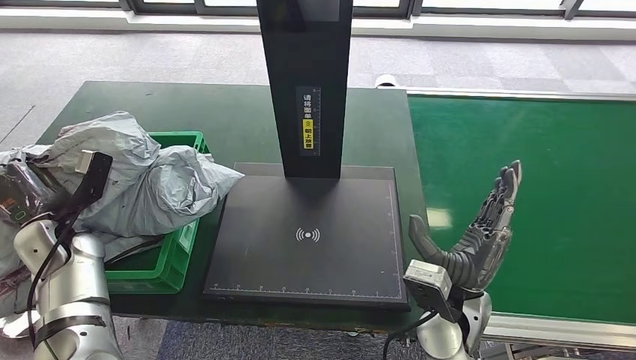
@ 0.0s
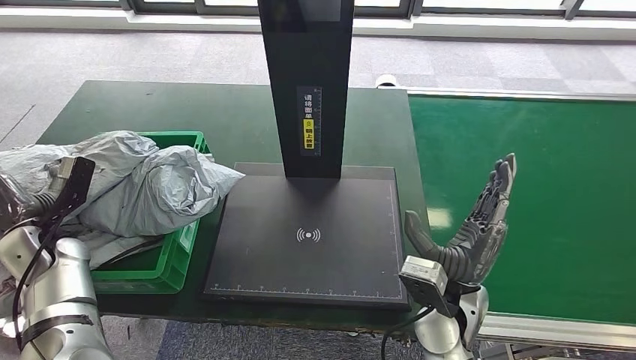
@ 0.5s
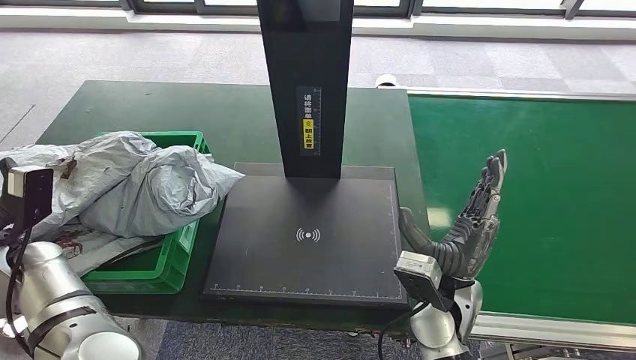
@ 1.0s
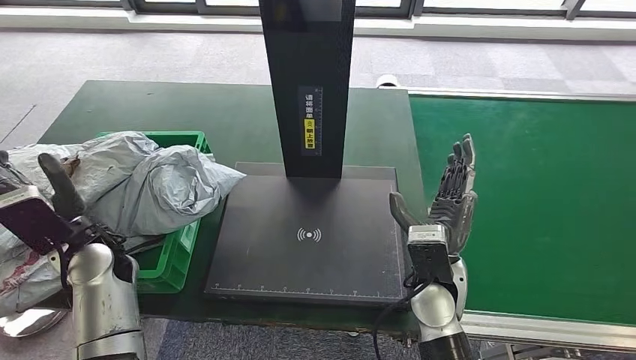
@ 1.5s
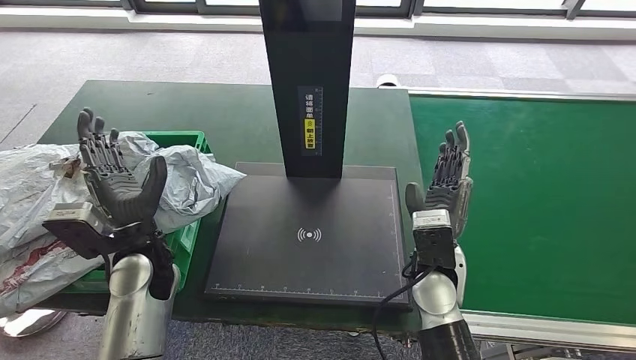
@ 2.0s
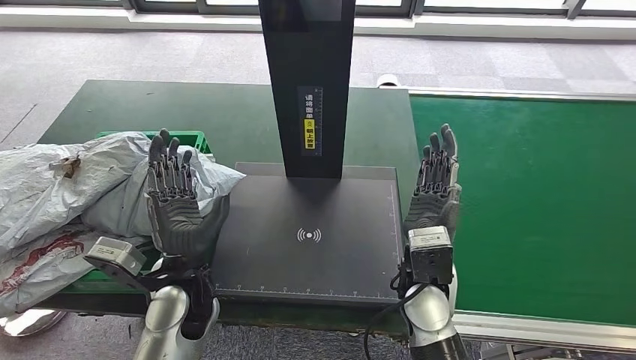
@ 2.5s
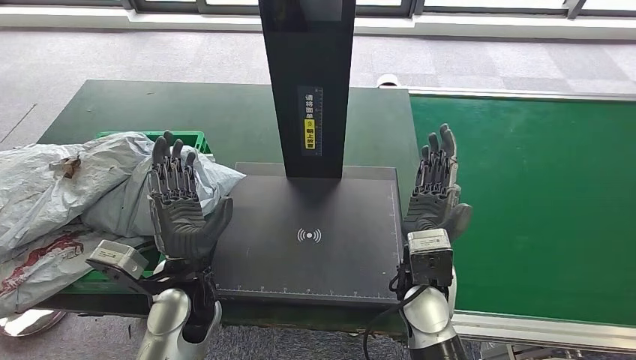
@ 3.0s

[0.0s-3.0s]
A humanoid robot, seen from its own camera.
Step, 0.0s to 3.0s: Place the parcel into the delivery box.
0.0s to 1.5s: The left hand moves to the right, about 10 cm.
1.5s to 3.0s: The left hand moves to the right, approximately 15 cm.

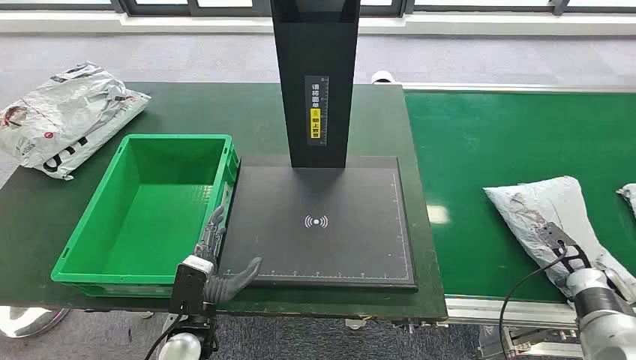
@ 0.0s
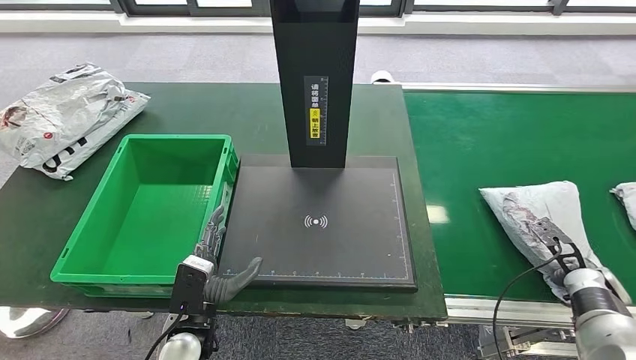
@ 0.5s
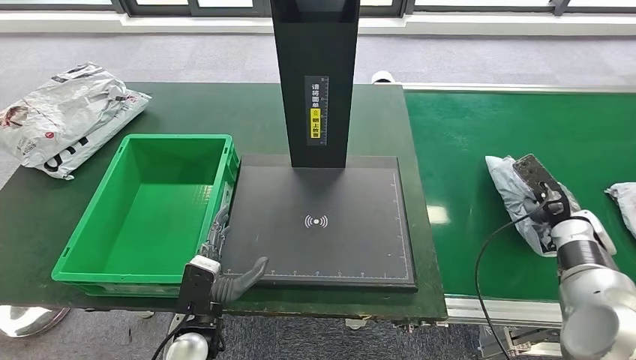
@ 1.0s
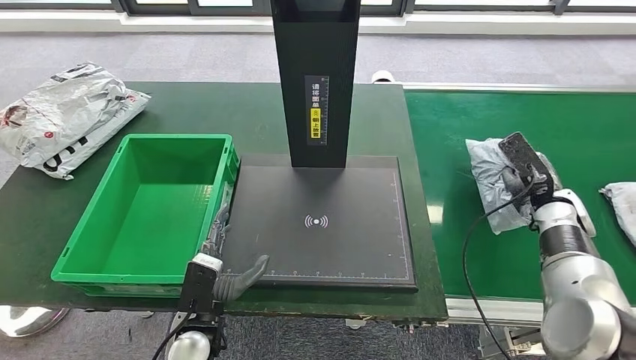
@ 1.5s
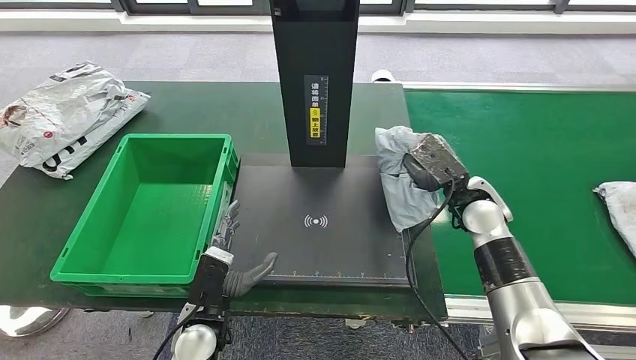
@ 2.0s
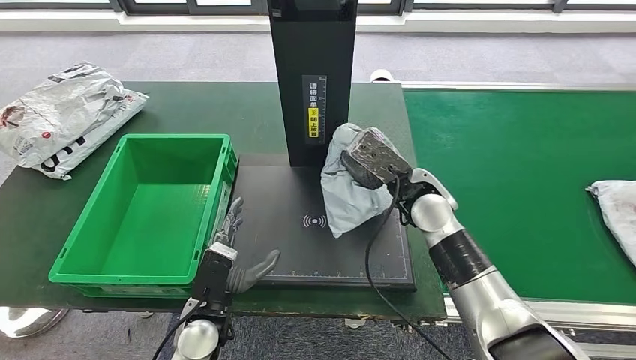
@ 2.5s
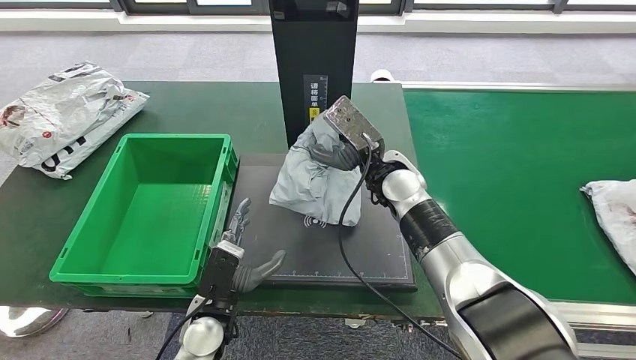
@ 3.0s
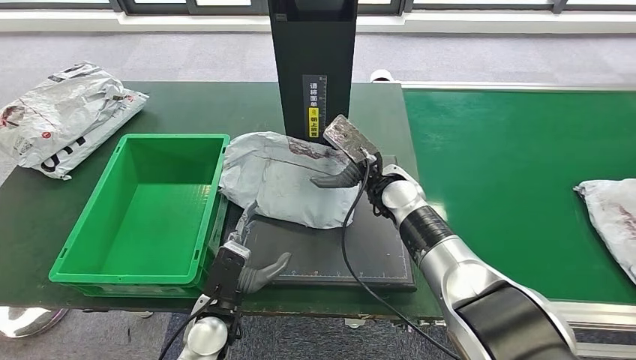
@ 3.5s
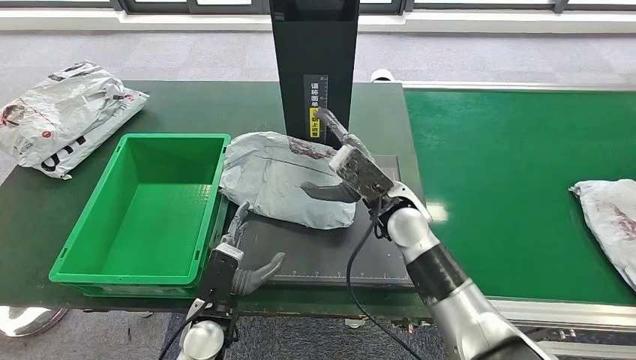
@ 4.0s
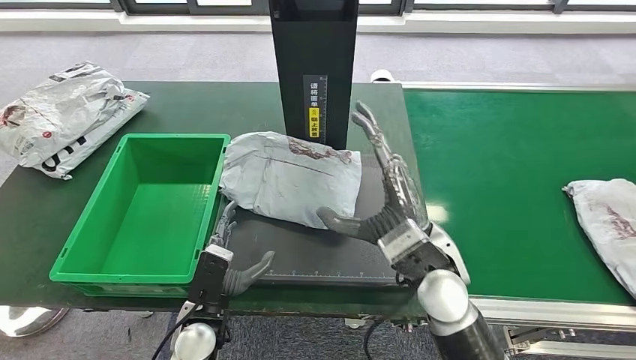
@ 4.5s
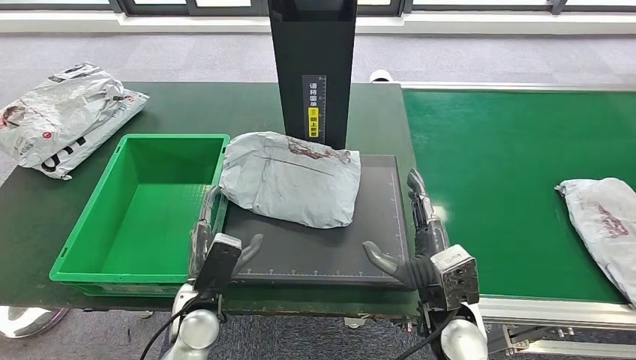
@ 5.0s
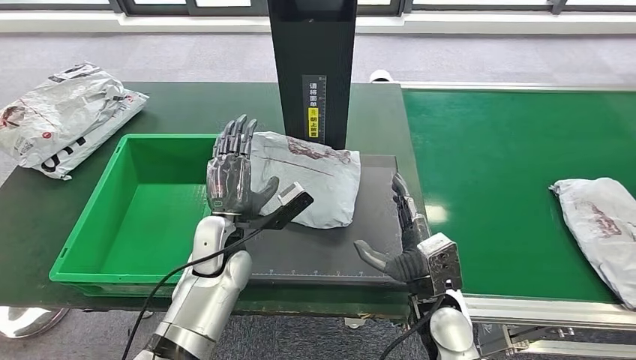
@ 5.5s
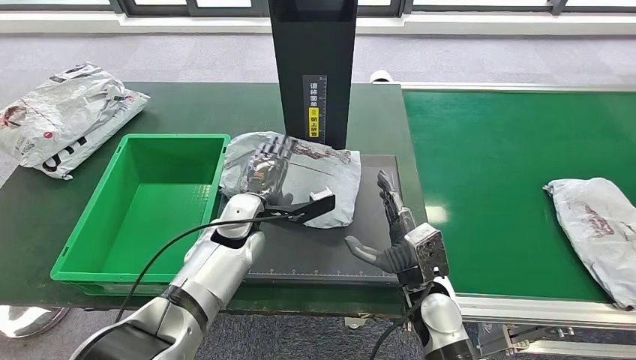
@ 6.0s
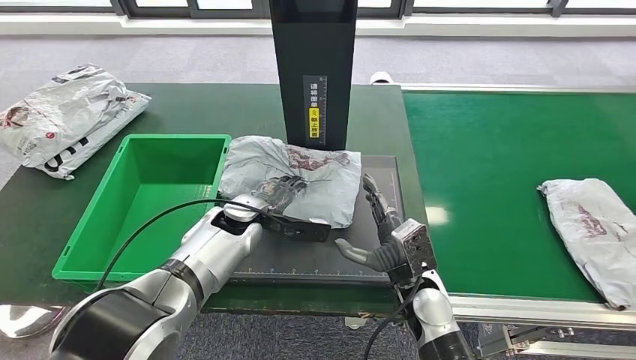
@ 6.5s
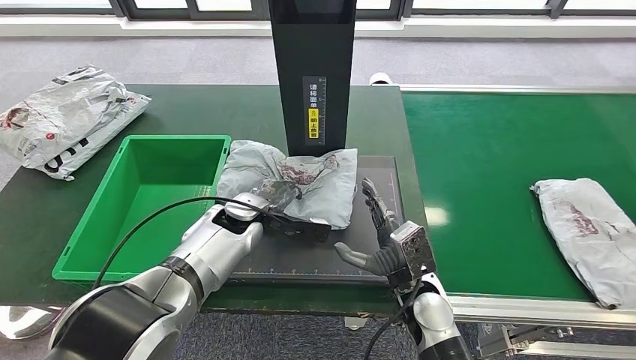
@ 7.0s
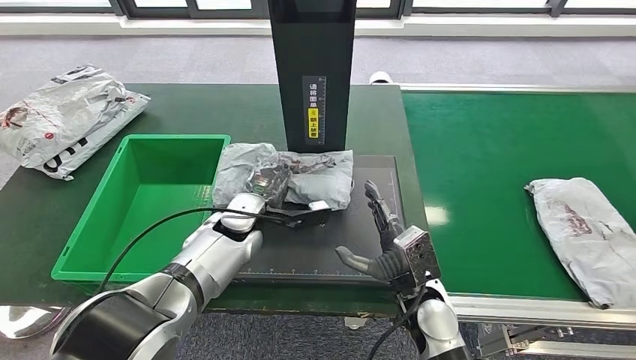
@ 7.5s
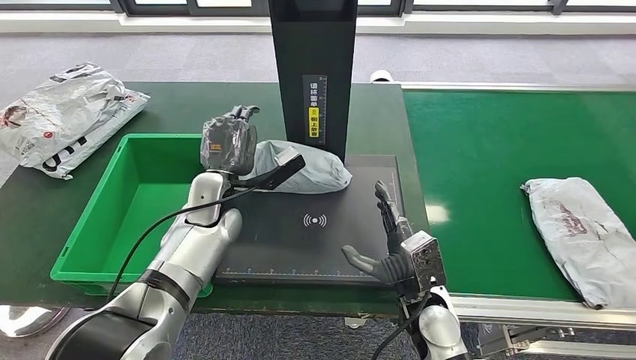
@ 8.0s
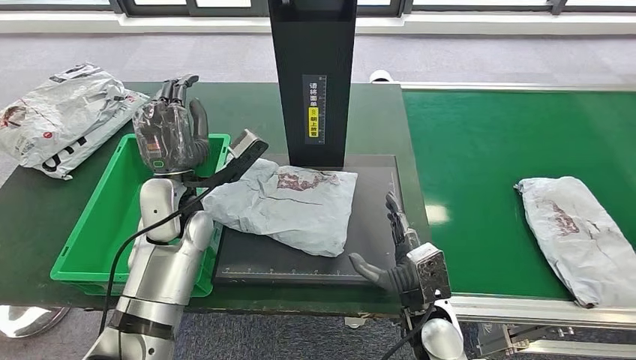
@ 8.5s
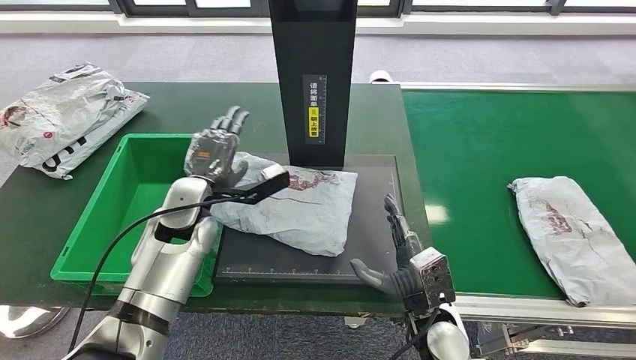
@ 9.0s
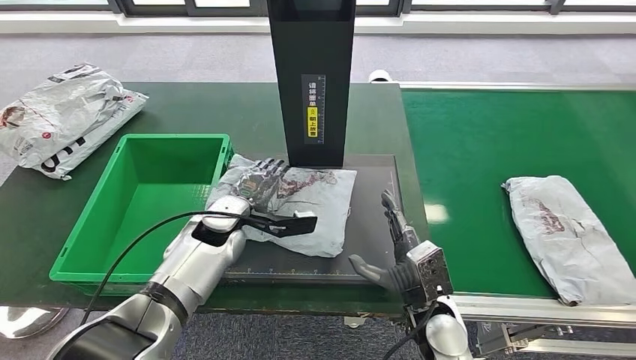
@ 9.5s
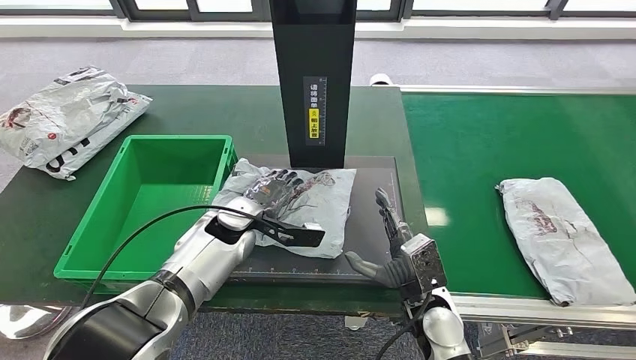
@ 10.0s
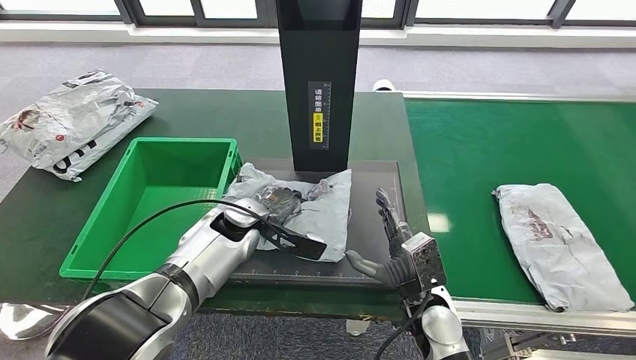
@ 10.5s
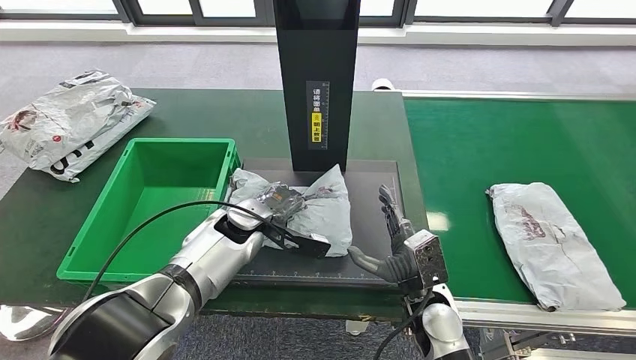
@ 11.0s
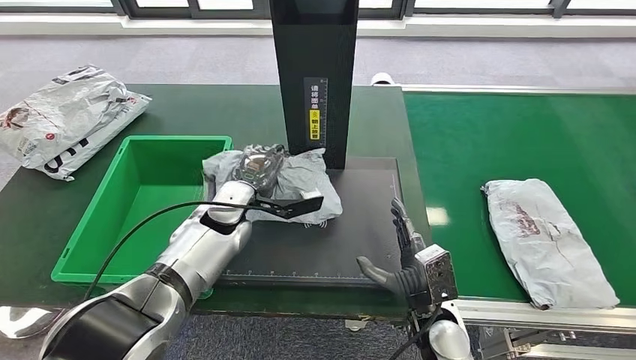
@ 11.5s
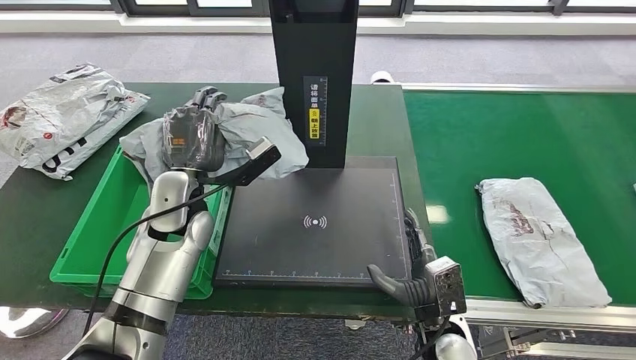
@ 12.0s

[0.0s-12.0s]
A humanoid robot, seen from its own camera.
Step, 0.0s to 1.5s: Take the parcel off the conveyor belt.
Step, 2.0s to 4.0s: Place the parcel onto the inbound machine.
6.0s to 8.0s: The left hand moves roughly 5 cm.

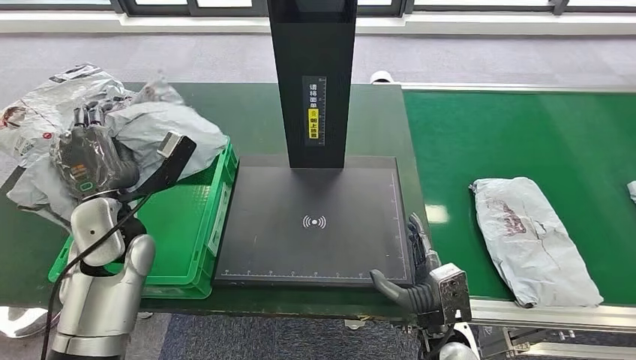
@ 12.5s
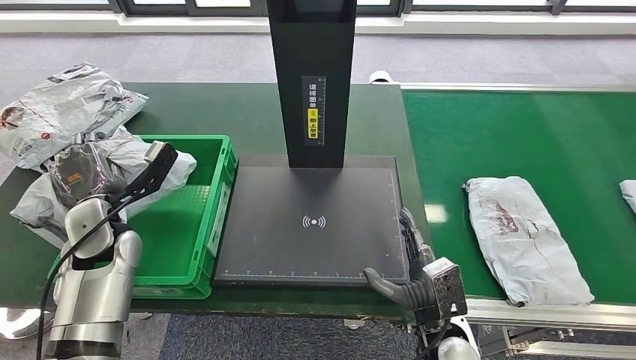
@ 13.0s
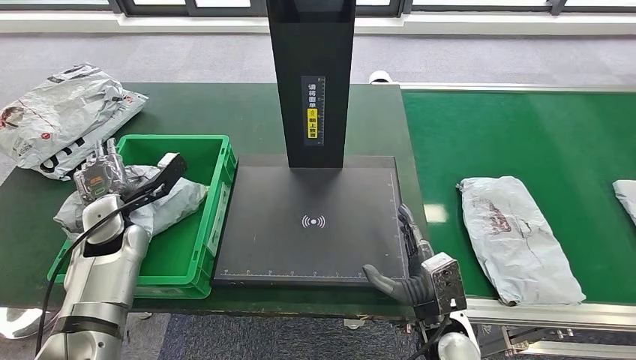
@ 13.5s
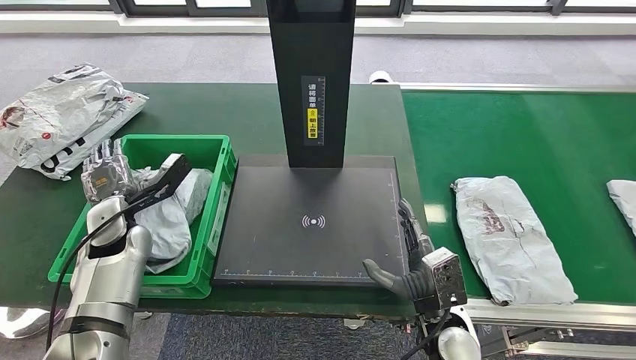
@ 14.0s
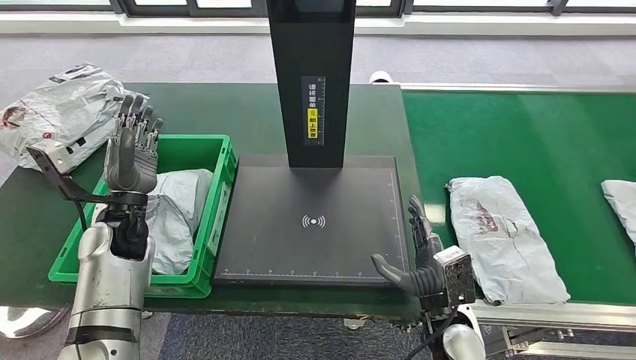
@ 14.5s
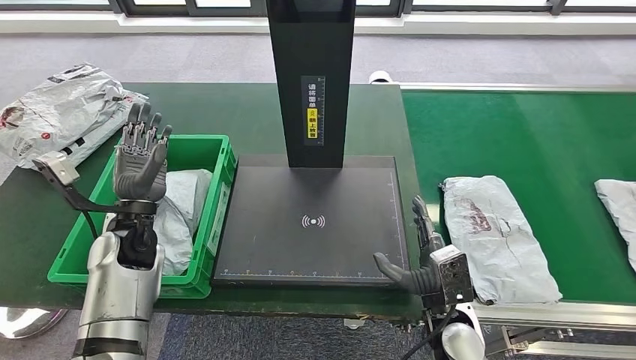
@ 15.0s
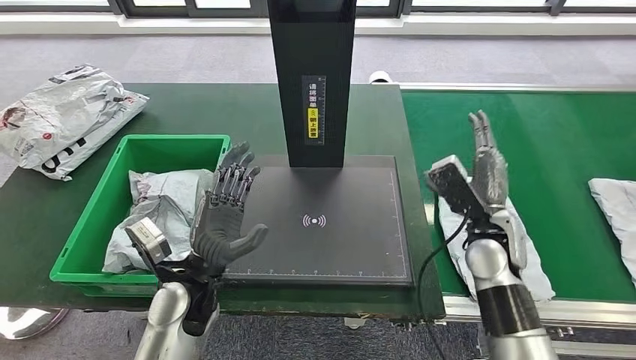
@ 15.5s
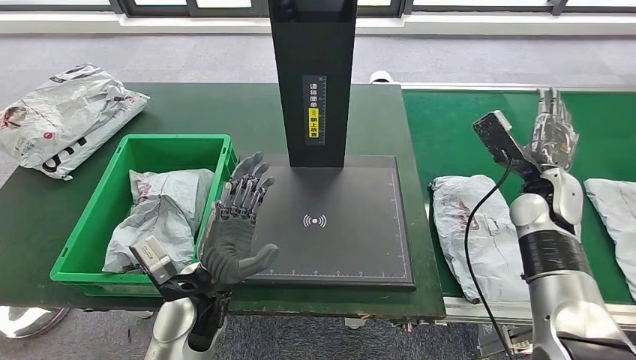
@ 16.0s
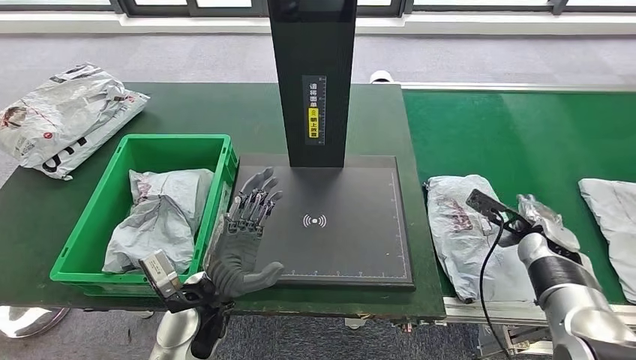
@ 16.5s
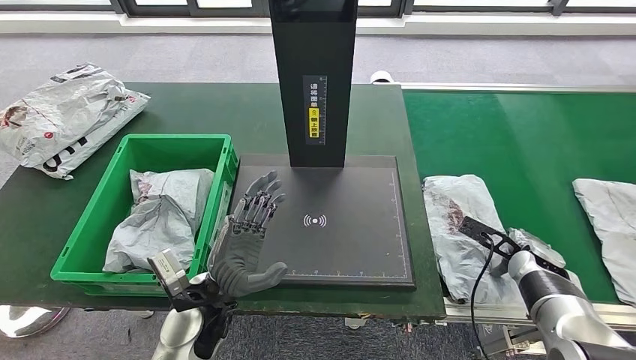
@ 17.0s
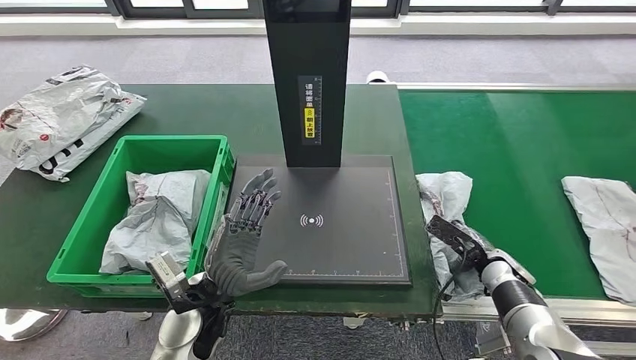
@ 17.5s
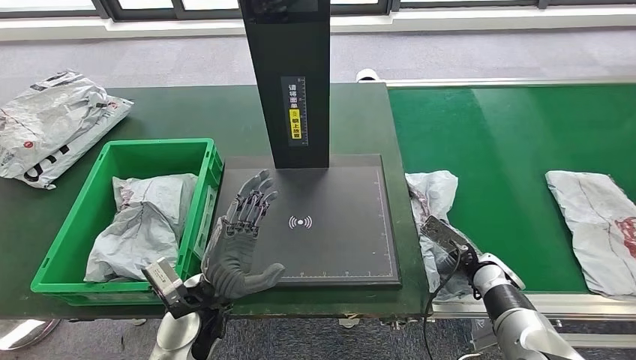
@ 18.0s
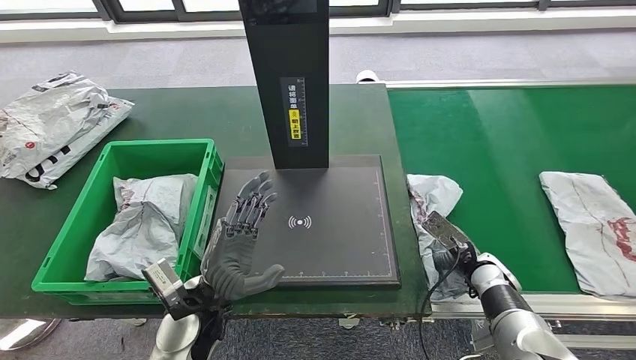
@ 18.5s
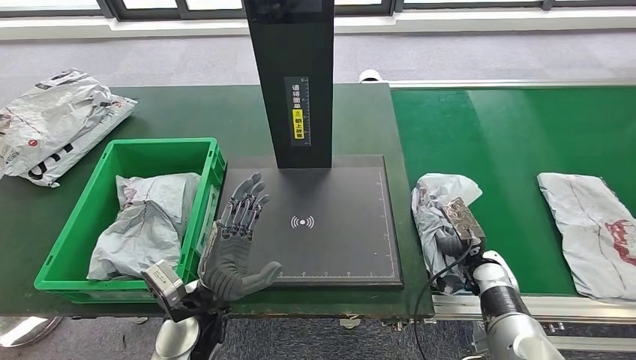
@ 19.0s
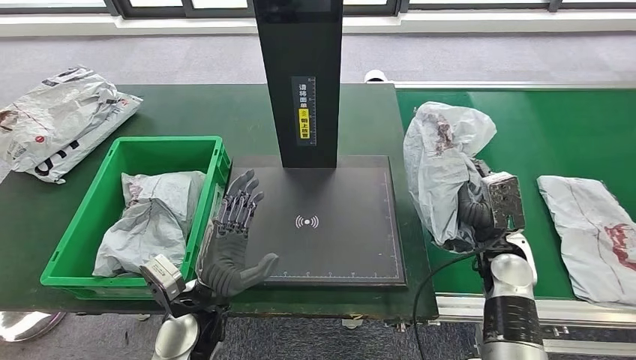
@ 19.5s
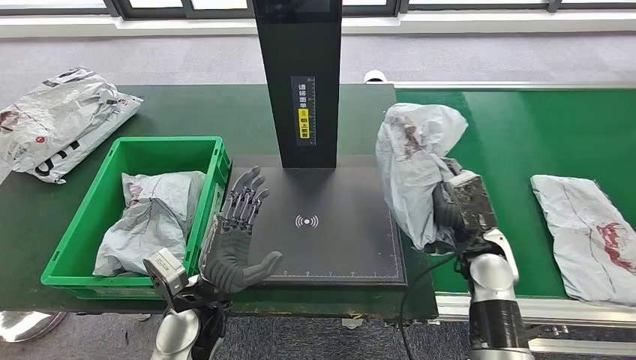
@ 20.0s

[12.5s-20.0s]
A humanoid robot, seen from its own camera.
Step, 12.5s to 15.5s: Put the parcel inside the courier box.
Step, 16.5s to 19.5s: Pick up the parcel from the conveyor belt.
